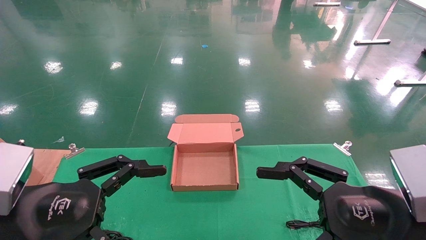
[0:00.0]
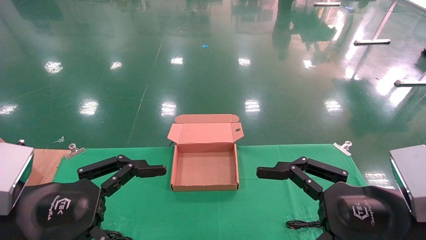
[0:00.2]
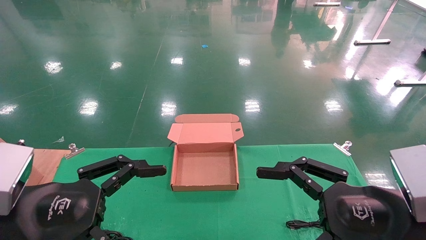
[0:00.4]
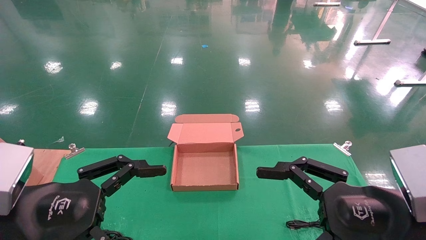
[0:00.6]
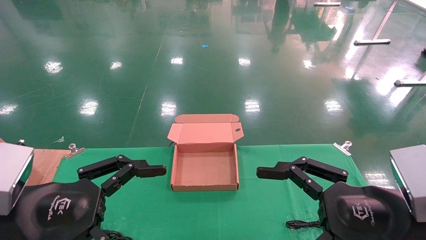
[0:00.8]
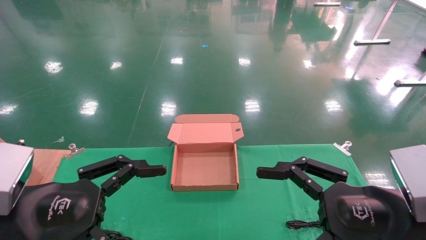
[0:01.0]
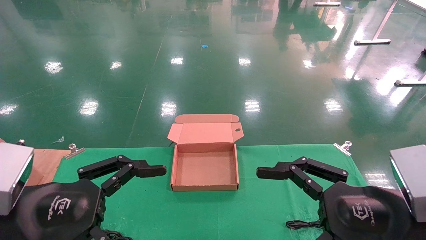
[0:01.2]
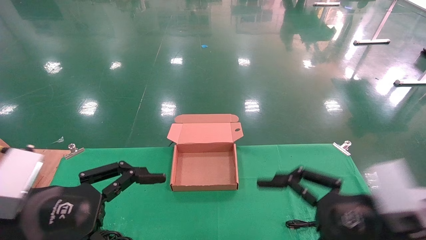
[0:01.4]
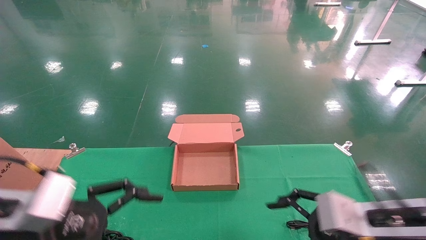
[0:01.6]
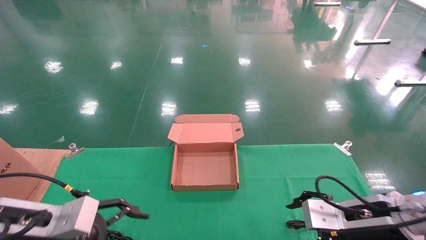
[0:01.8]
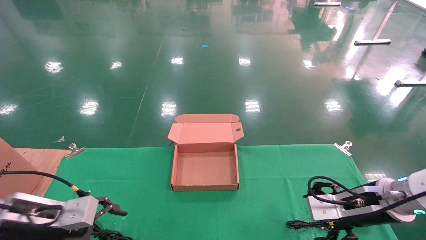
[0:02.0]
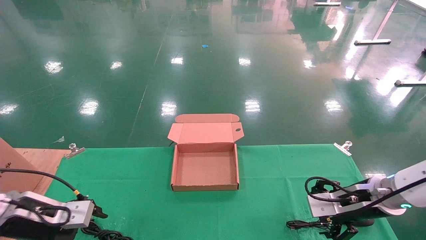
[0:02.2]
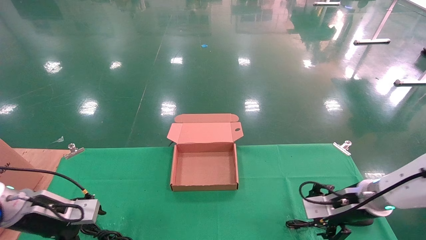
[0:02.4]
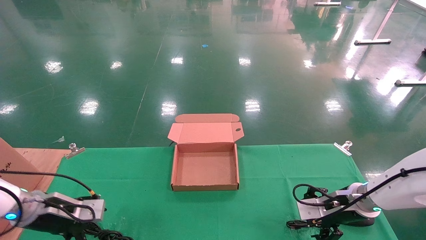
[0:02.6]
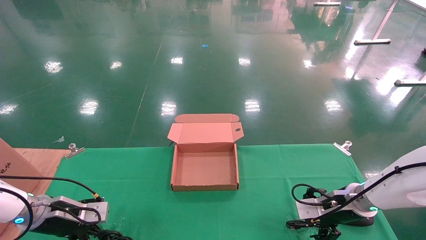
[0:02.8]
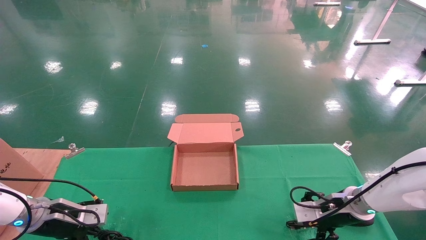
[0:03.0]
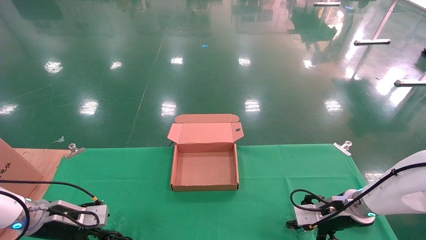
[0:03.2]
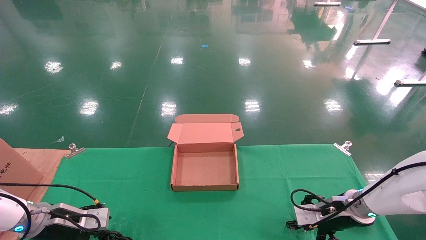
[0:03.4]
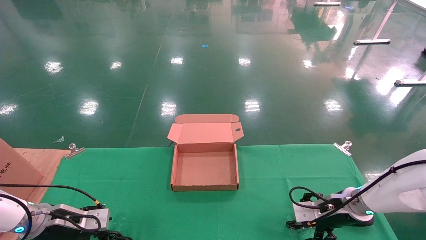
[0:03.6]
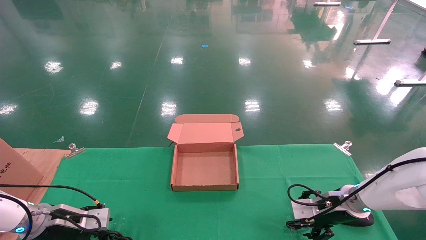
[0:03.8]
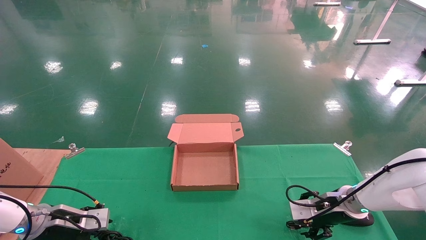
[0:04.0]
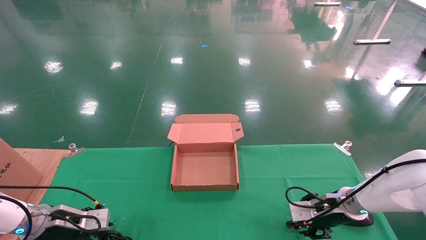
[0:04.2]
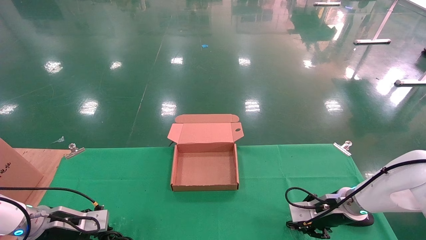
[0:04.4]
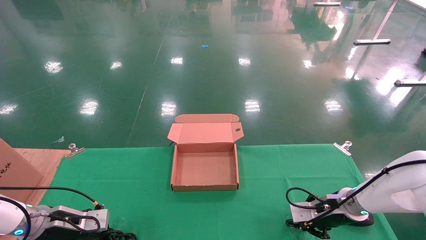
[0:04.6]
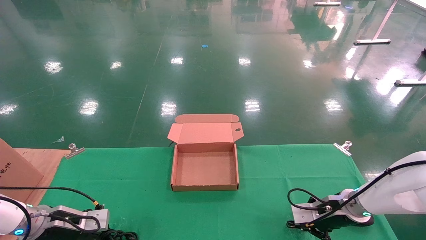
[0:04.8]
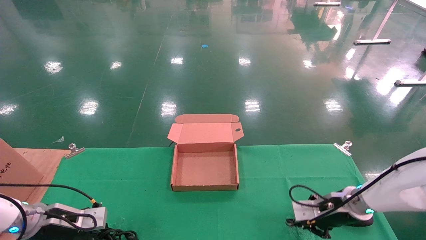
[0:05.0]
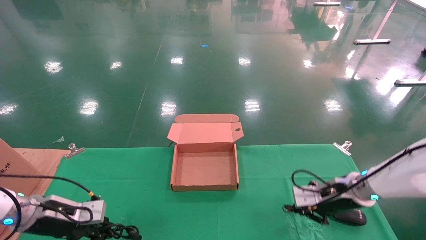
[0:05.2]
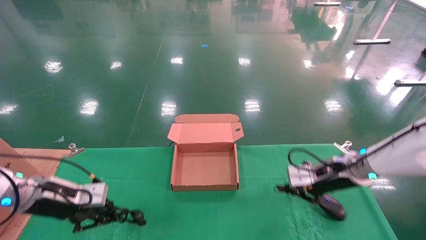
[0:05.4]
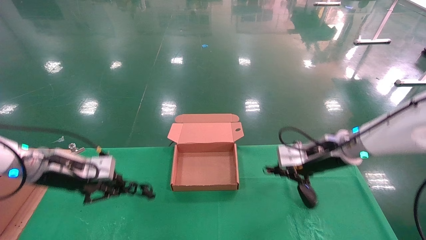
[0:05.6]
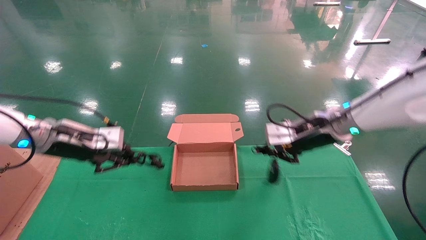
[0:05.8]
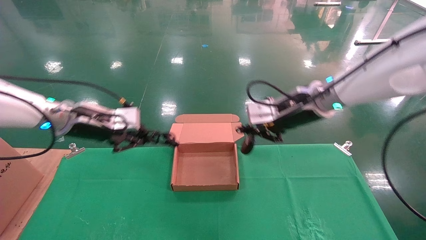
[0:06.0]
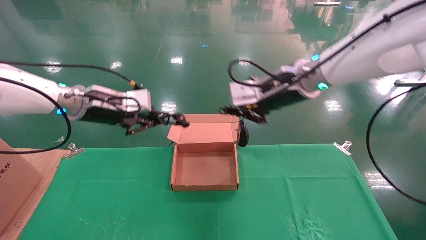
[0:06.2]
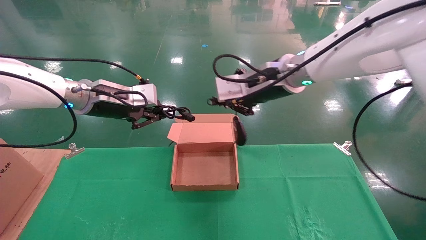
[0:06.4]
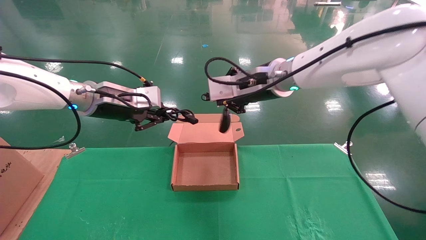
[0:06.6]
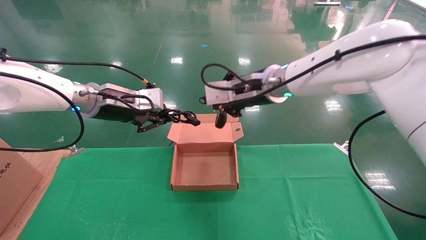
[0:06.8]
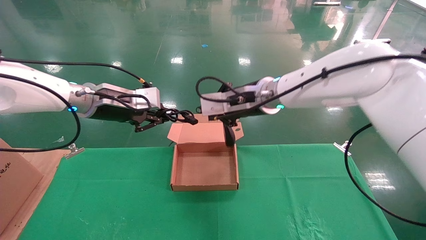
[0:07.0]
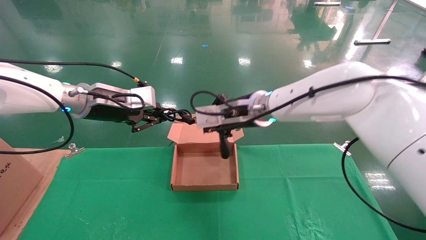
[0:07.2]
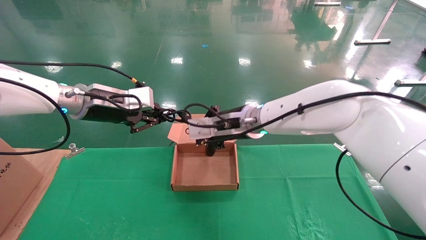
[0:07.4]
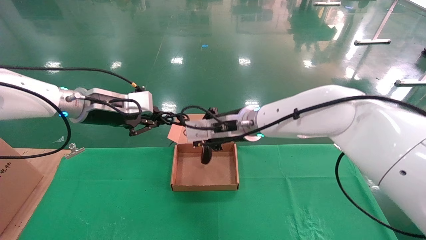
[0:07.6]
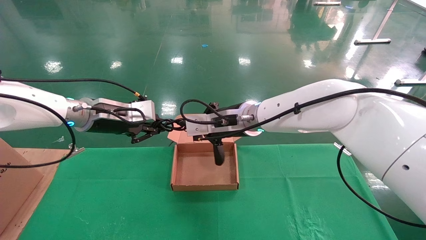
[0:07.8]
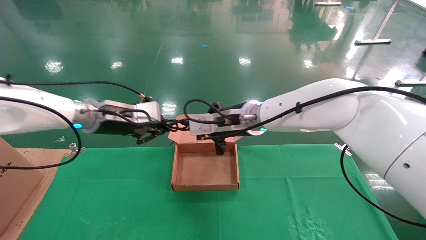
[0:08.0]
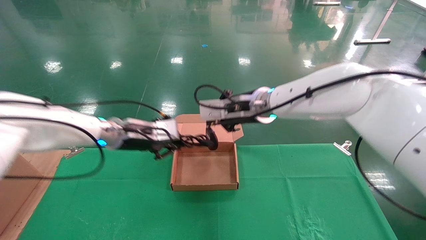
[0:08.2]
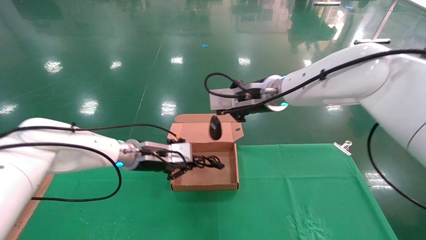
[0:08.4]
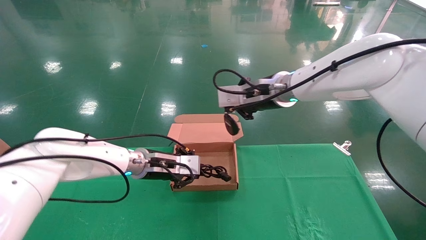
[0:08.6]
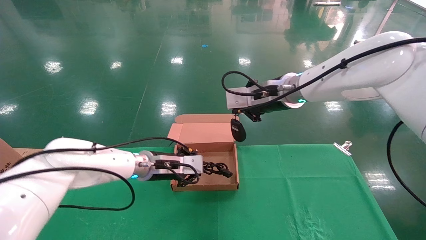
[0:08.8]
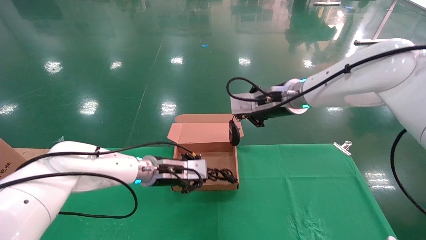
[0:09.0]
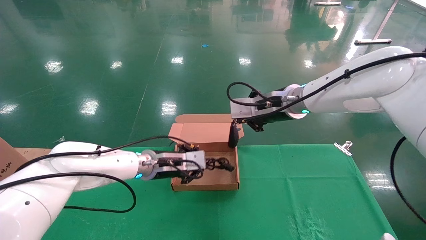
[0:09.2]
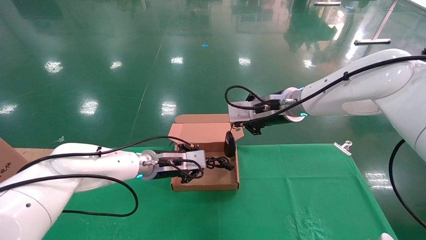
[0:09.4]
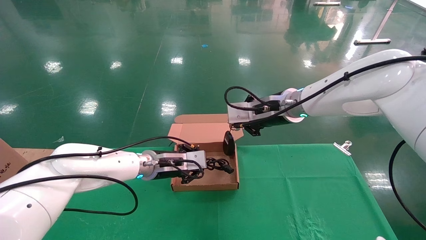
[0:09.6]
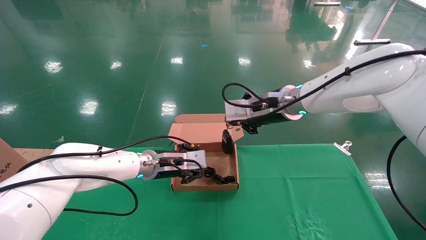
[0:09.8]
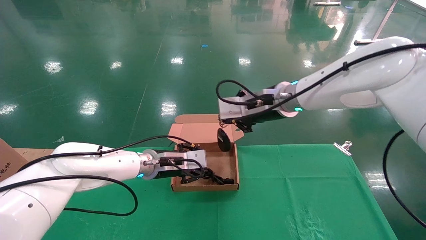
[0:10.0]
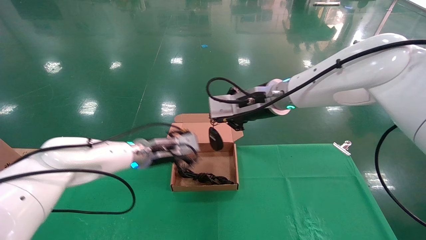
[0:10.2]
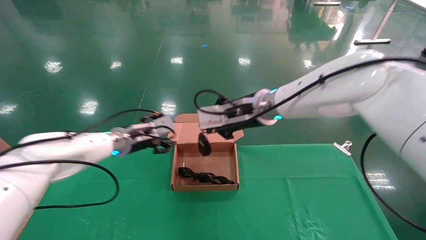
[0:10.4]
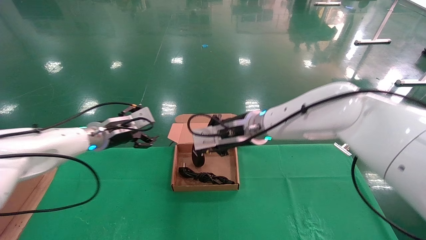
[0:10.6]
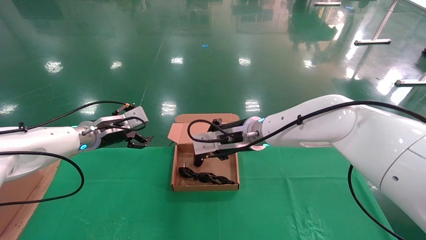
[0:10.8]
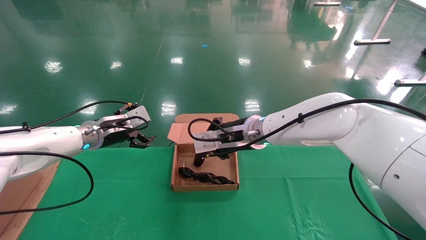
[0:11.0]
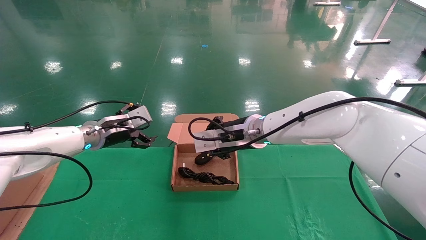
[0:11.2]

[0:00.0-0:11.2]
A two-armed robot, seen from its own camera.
Step, 0:01.6 to 0:06.0: Grab and lift both the mouse and power cord from the accessory packaging area at the same time.
0:00.0 to 0:01.6: The right gripper goes about 10 cm forward and downward, while the left gripper ends up roughly 5 cm from where it was.
0:01.6 to 0:03.2: The left gripper shifts approximately 20 cm forward, downward and to the left. Meanwhile the right gripper is displaced forward and downward by roughly 20 cm.
0:03.2 to 0:04.8: The right gripper closes, while the left gripper closes its fingers.
0:04.8 to 0:06.4: The right gripper heads upward and to the left, covering approximately 35 cm. The left gripper shifts about 30 cm upward and to the right.
0:06.4 to 0:08.0: The left gripper moves approximately 5 cm, while the right gripper travels downward and to the left by some 10 cm.
0:08.0 to 0:09.6: The left gripper heads downward and to the right, covering about 15 cm; the right gripper goes some 5 cm to the right.
0:09.6 to 0:11.2: The right gripper heads to the left and downward, covering roughly 10 cm. The left gripper heads to the left and upward, covering approximately 15 cm, and opens up.

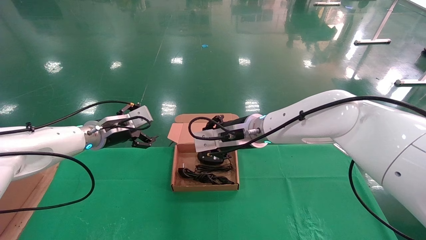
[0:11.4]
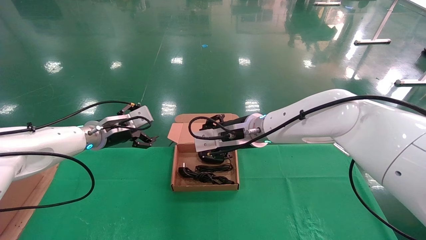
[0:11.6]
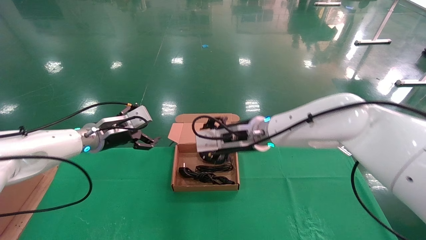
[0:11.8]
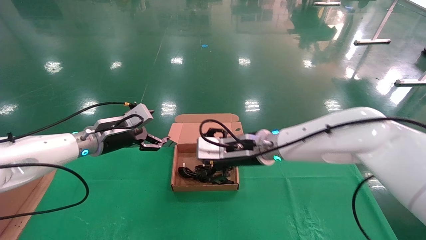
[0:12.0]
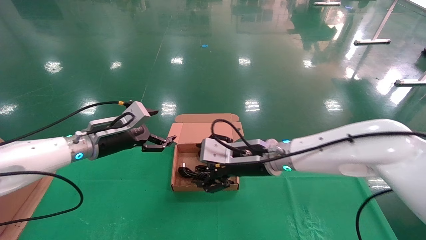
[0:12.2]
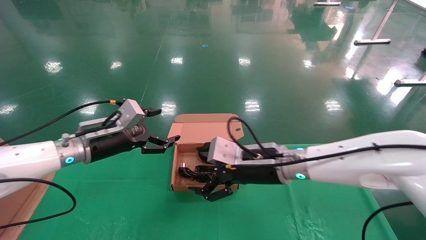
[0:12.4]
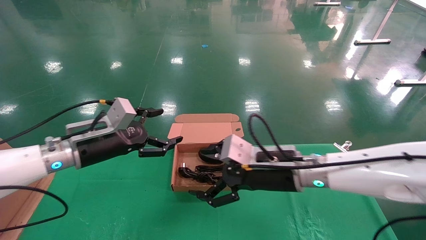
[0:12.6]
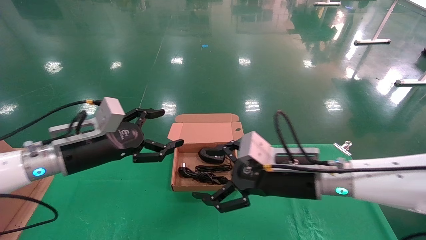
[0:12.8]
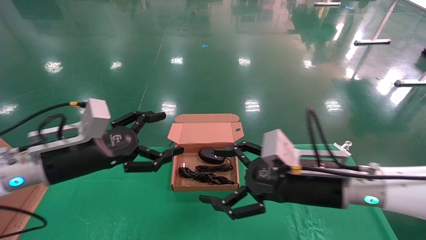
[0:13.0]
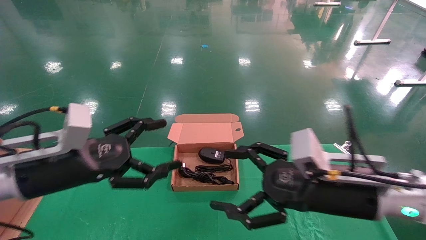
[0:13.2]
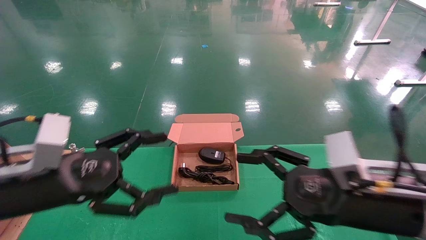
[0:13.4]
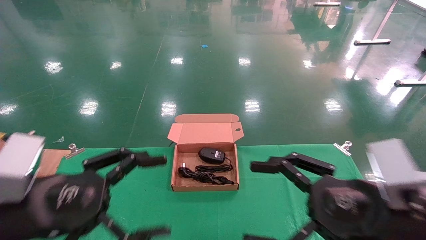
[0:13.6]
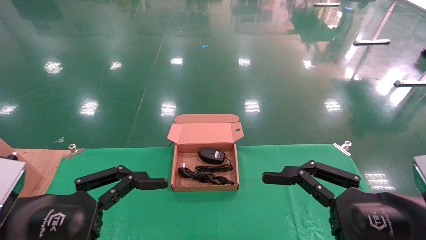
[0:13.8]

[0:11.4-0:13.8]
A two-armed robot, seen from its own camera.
0:11.4 to 0:12.6: The right gripper goes about 10 cm backward, to the right and downward, and opens; the left gripper heads backward, covering some 10 cm.
0:12.6 to 0:13.8: The left gripper goes some 20 cm backward. The right gripper goes about 20 cm backward and to the right.

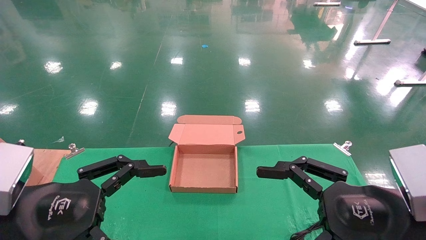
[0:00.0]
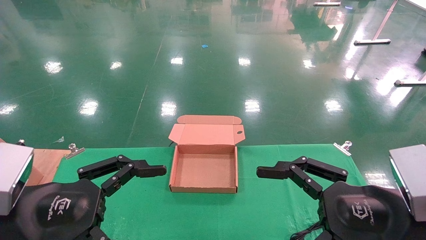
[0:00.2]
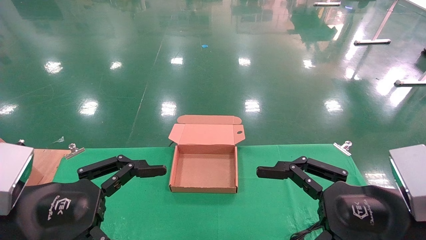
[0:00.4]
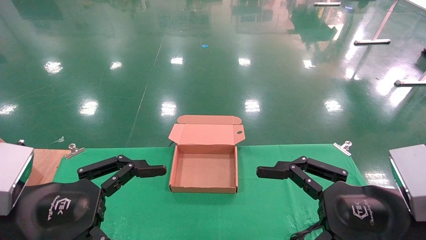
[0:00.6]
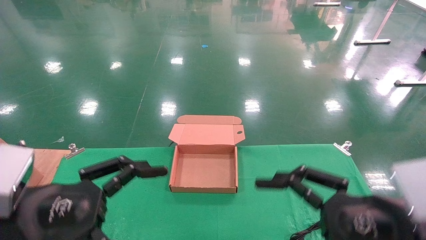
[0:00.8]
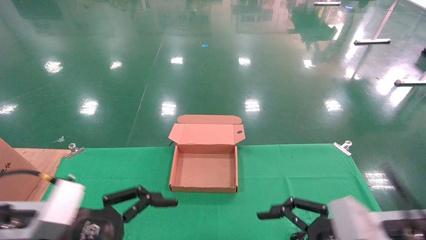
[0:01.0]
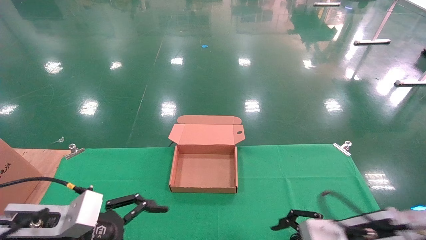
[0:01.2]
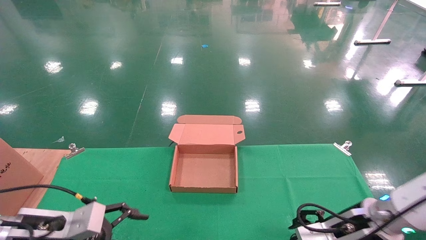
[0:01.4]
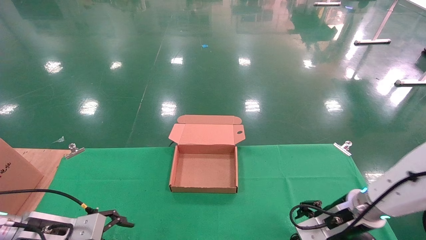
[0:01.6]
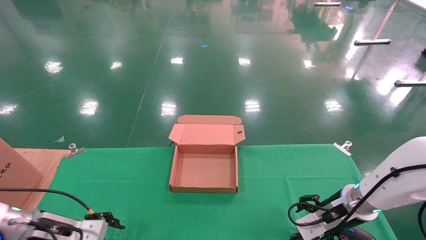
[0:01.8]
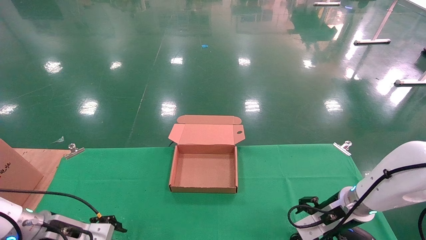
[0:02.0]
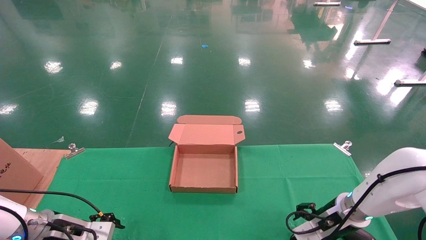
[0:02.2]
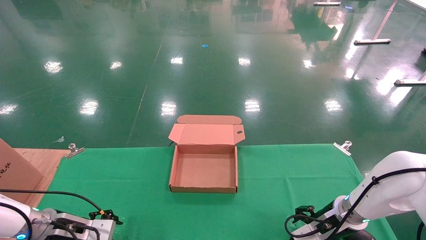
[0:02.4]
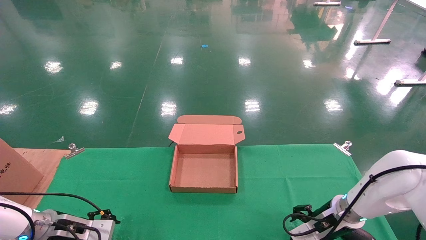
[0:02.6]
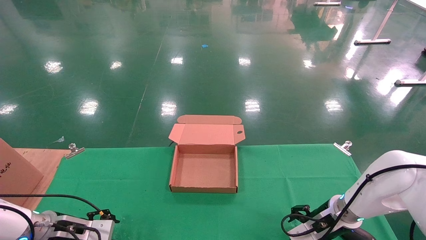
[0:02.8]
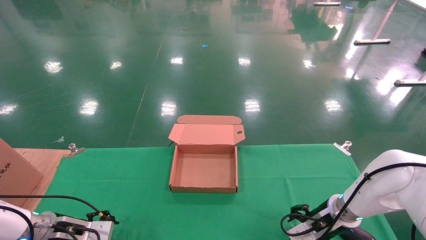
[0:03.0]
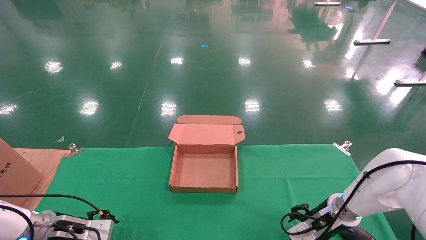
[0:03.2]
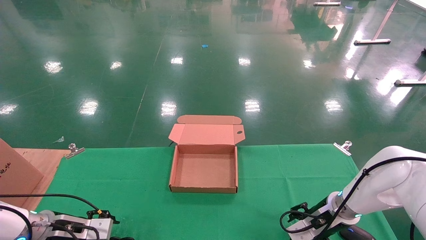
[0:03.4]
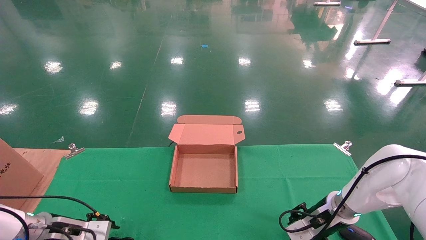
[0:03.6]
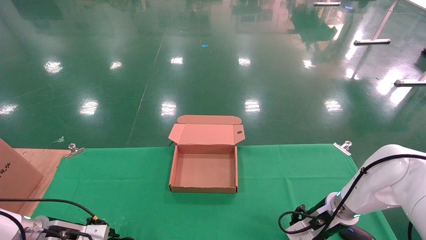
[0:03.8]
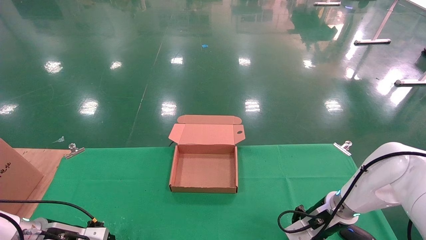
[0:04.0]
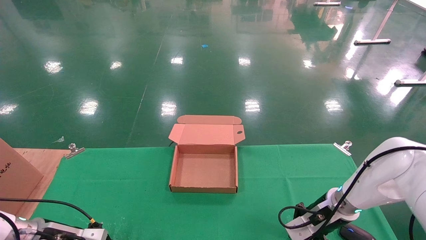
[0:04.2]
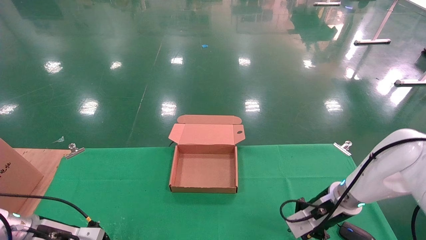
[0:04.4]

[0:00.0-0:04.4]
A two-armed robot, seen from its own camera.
0:00.0 to 0:01.4: The left gripper heads downward and forward, covering some 15 cm. Meanwhile the right gripper heads forward and downward, covering roughly 15 cm.
0:01.4 to 0:03.0: The left gripper is displaced forward, downward and to the left by some 15 cm. Meanwhile the right gripper heads forward and downward, covering some 10 cm.
0:03.0 to 0:04.4: The right gripper moves upward, about 5 cm, and closes its fingers, while the left gripper closes its fingers.
